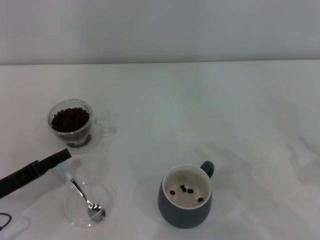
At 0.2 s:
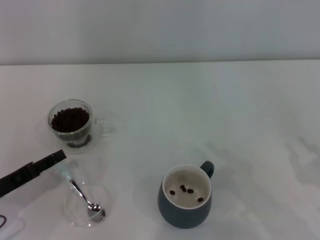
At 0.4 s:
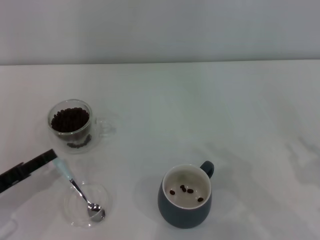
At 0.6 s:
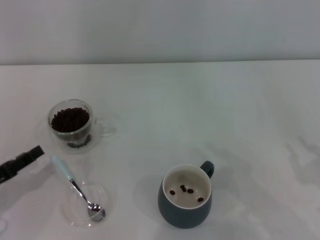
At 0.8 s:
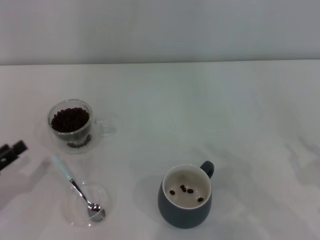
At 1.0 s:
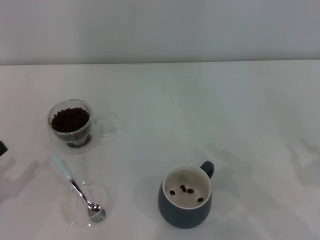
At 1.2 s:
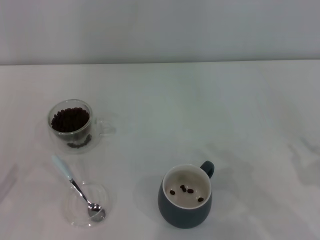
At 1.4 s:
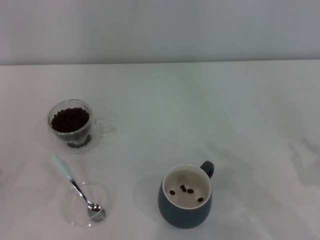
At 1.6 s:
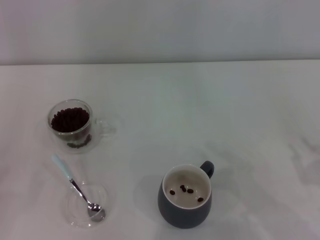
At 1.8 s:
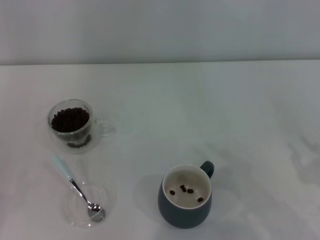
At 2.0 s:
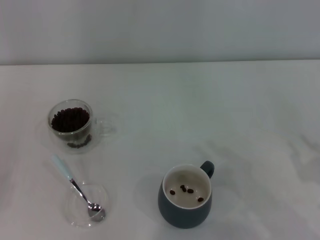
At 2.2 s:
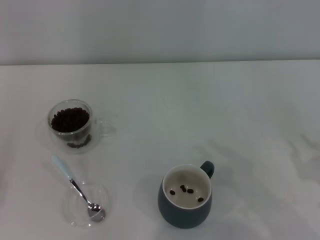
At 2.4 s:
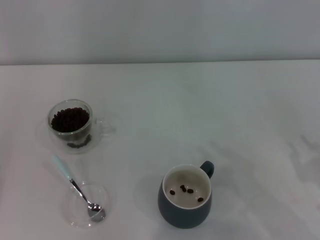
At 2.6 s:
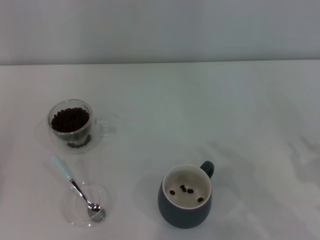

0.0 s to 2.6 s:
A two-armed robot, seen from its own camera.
Task of the whole recording: Use a blue spoon to take out the coffee beans from the glass and pour them into the gray cup.
0.0 to 1.2 s: The left gripper travels to the left and backward by about 10 cm.
